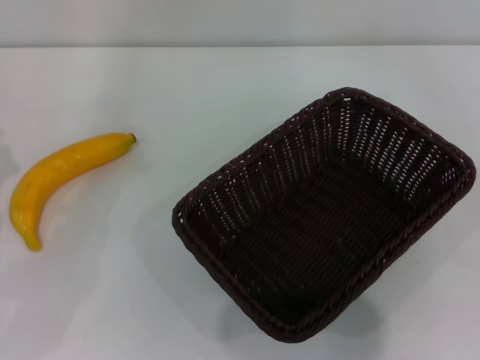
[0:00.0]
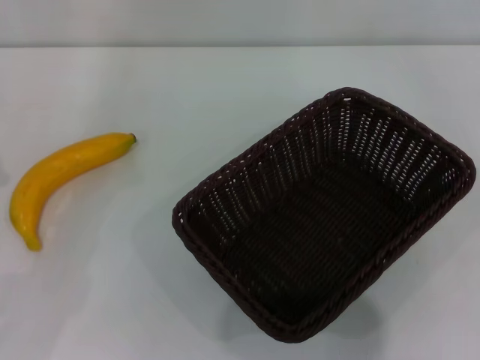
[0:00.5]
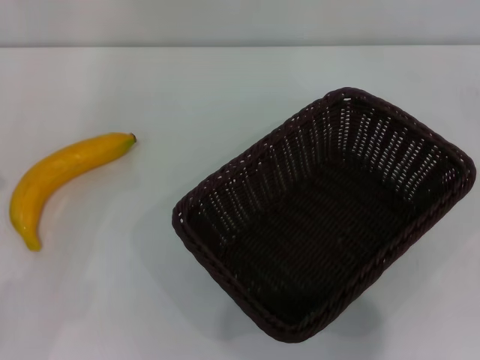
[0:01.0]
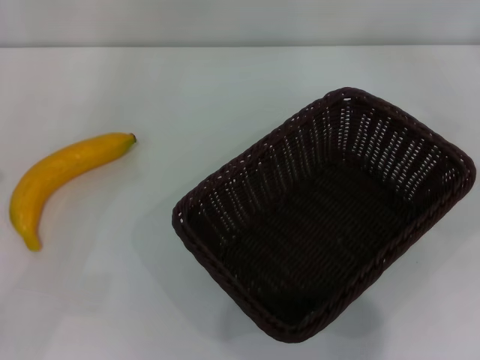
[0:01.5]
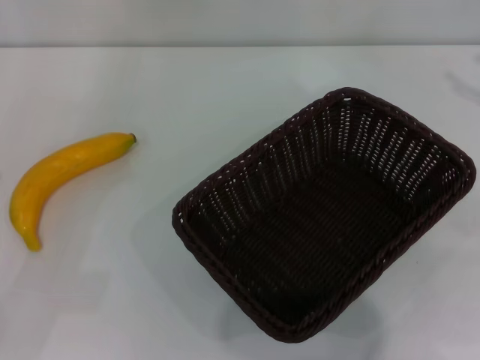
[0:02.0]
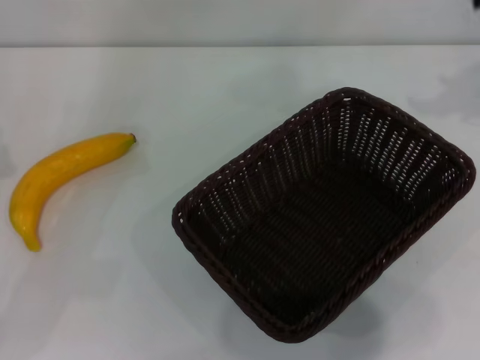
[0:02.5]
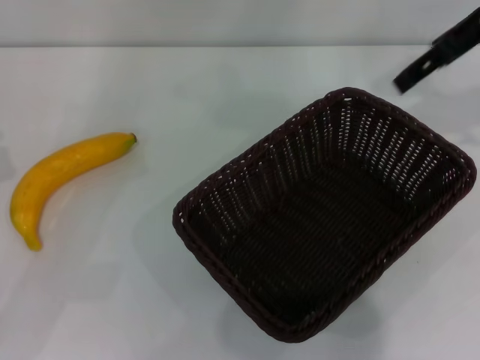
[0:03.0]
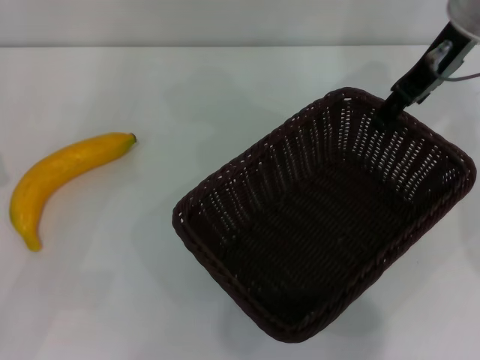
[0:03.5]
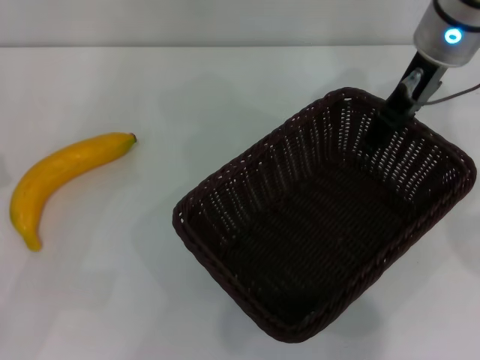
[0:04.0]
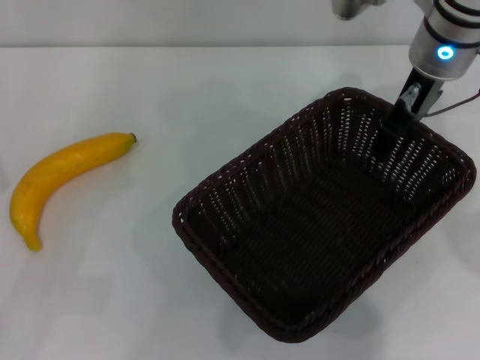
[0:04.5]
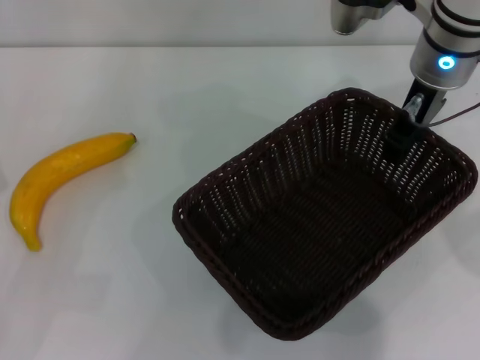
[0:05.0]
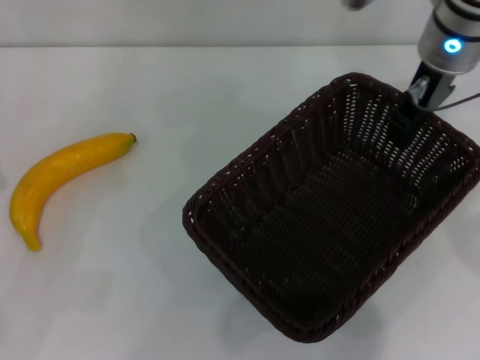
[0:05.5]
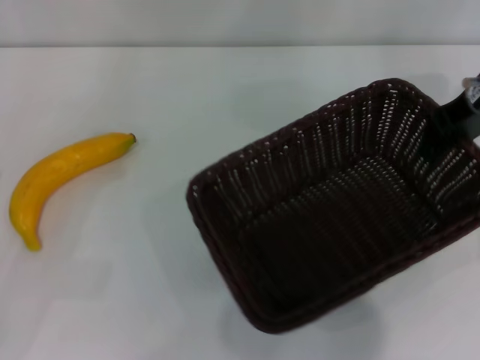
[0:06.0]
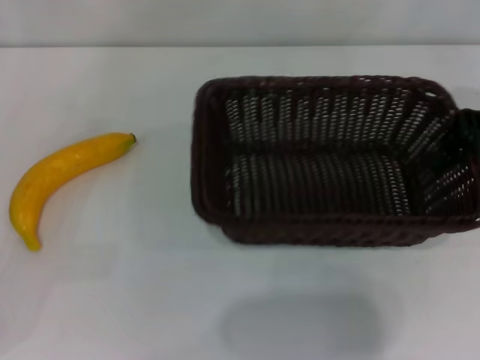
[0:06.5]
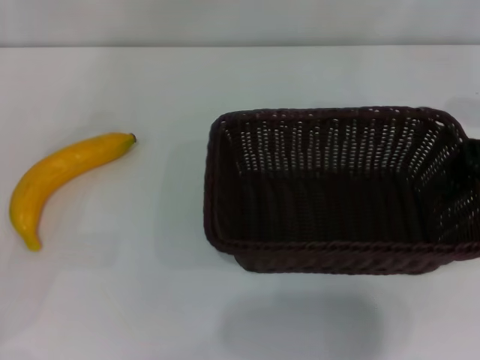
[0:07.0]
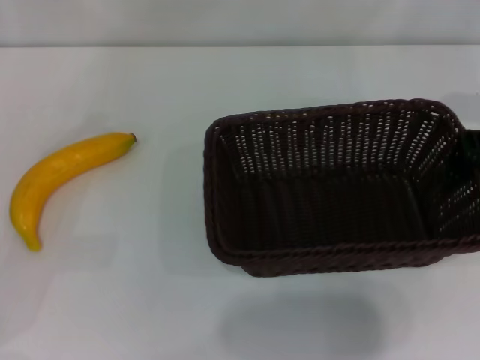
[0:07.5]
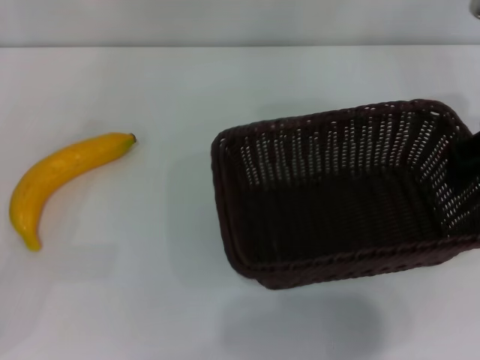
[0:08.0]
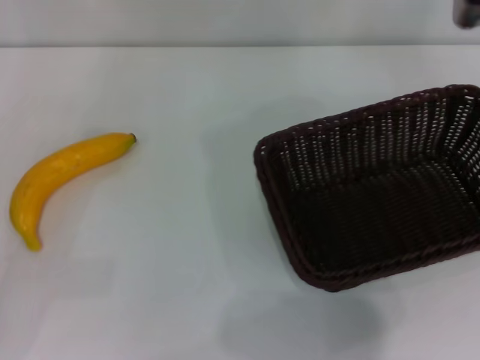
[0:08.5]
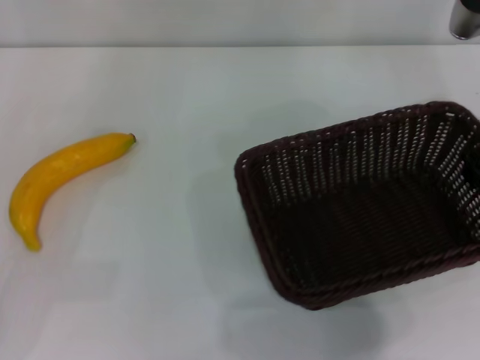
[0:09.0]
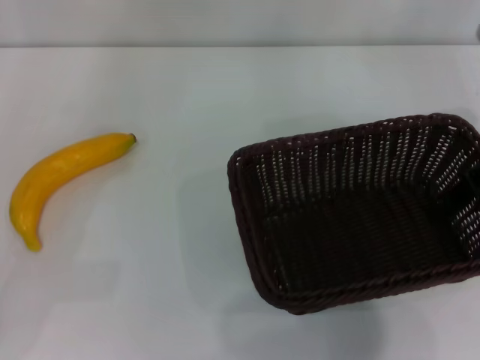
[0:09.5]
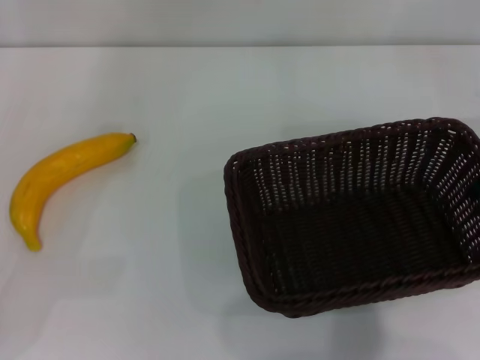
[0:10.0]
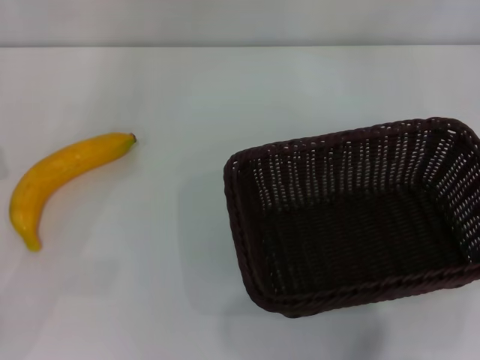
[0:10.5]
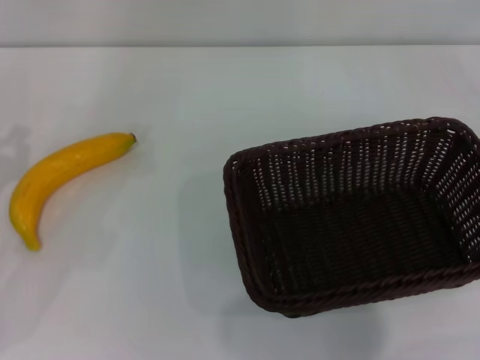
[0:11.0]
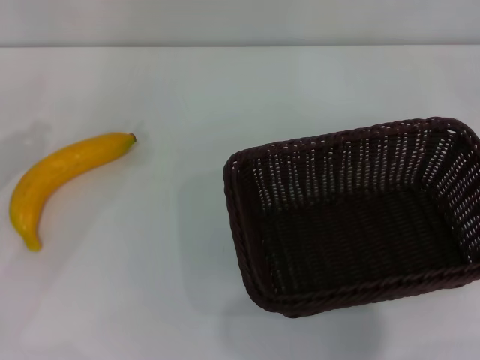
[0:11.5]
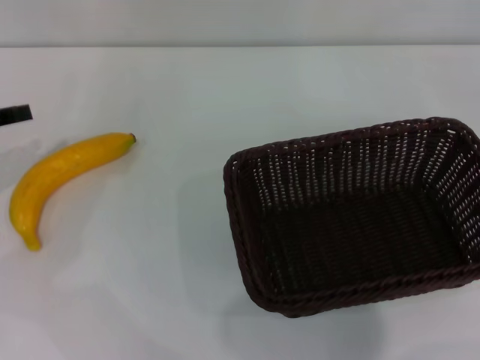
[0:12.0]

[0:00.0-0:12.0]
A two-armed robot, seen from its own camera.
Step, 0:00.0 to 0:05.5: Pick up the dark basket with the right gripper.
Step, 0:06.0 to 0:10.0: Place the dark basket in the center of view with the right gripper.
0:02.0 to 0:04.0: The right gripper goes about 25 cm to the left.
0:04.0 to 0:06.0: The right gripper shifts roughly 10 cm to the right, and closes up.
0:08.0 to 0:10.0: The right gripper changes place by about 5 cm, and opens its fingers.

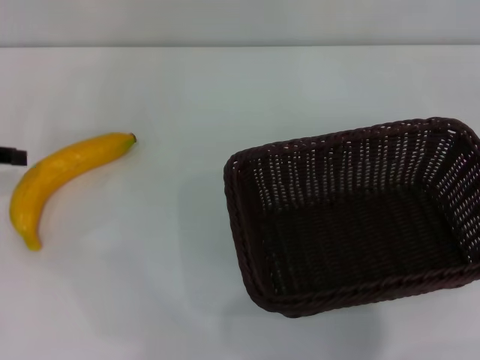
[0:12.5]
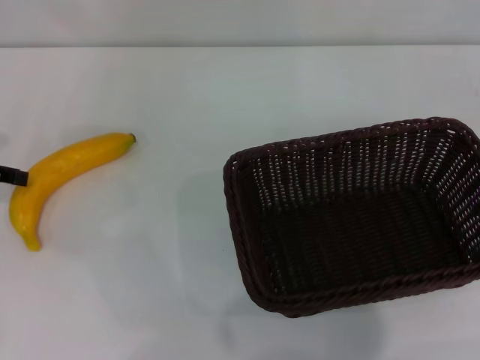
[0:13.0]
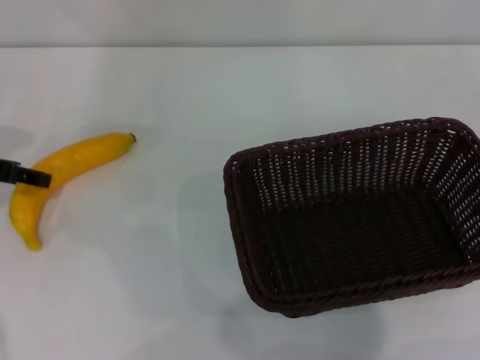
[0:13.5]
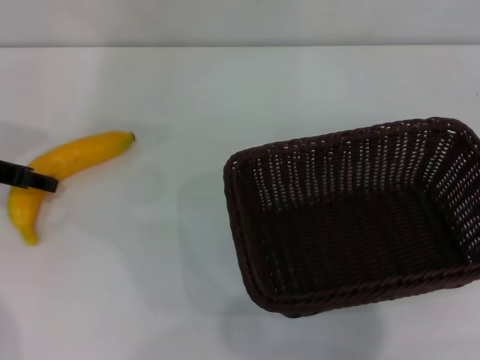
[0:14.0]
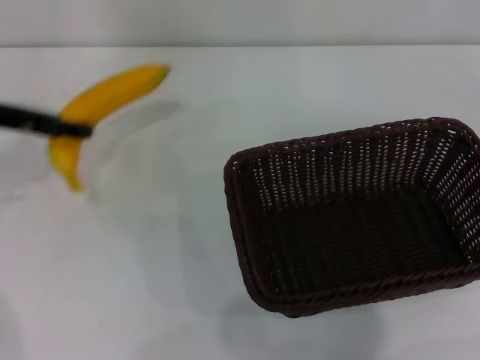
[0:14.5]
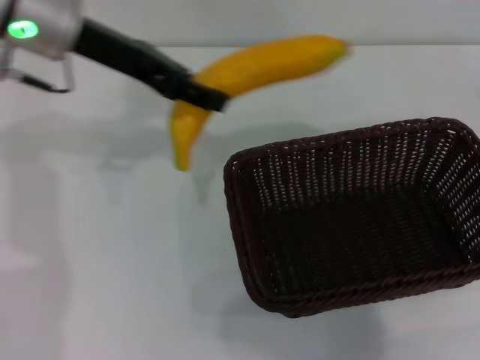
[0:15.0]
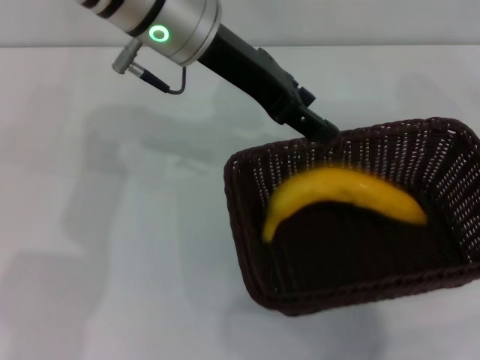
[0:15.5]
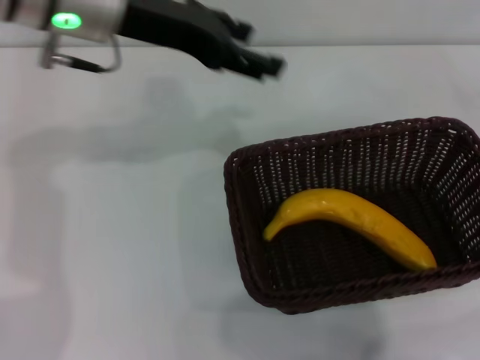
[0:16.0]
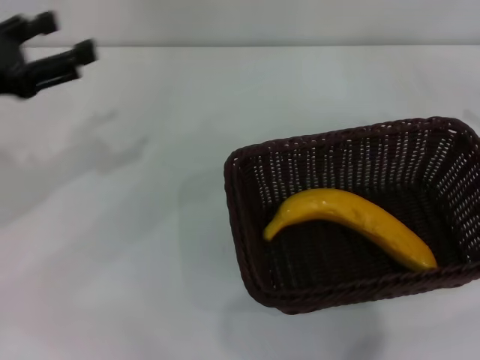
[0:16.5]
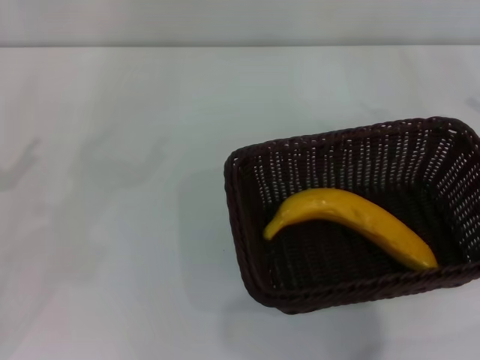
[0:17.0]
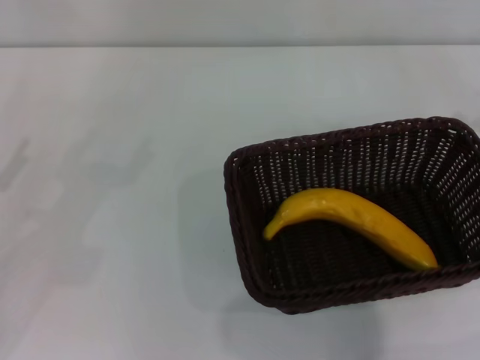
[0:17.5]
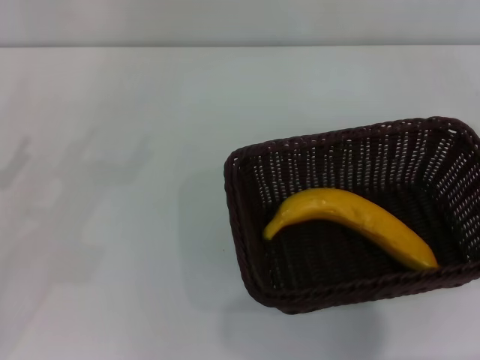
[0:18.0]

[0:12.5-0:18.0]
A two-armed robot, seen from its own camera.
Step, 0:14.5 to 0:15.5: Place the banana into the dark basket with the left gripper.
0:12.5 to 0:14.5: The left gripper is displaced to the right by about 5 cm.
0:14.5 to 0:16.0: The left gripper goes about 15 cm to the right and upward, and opens.
0:16.0 to 0:18.0: The left gripper is displaced to the left, downward and backward by about 30 cm, while the right gripper shifts by some 5 cm, and opens and closes again.

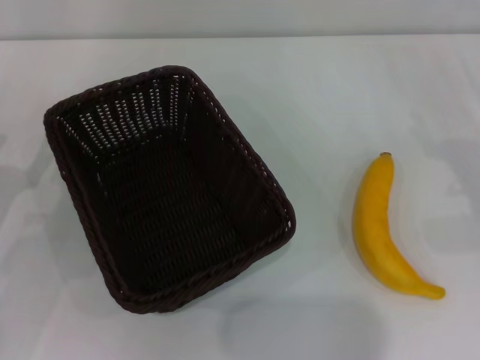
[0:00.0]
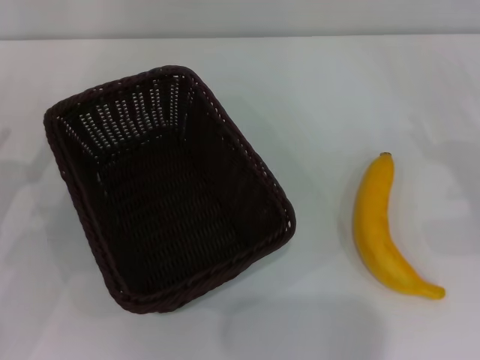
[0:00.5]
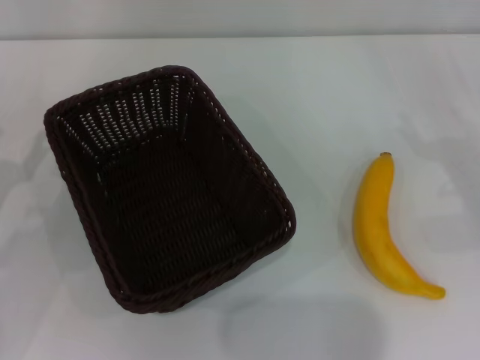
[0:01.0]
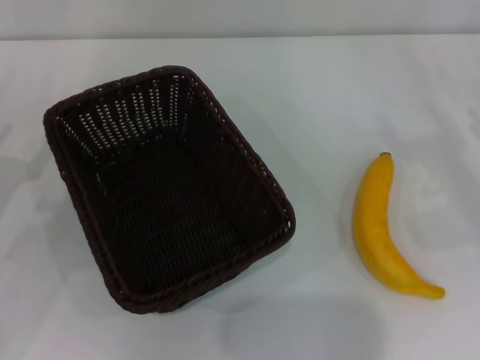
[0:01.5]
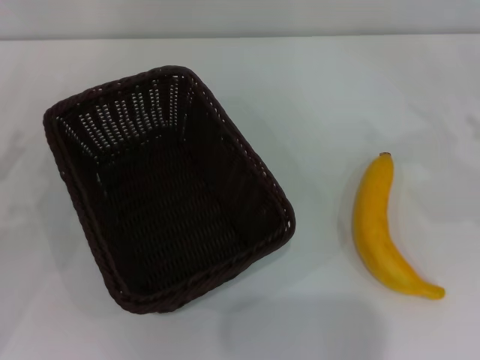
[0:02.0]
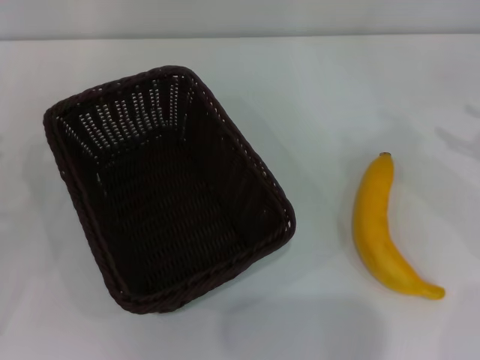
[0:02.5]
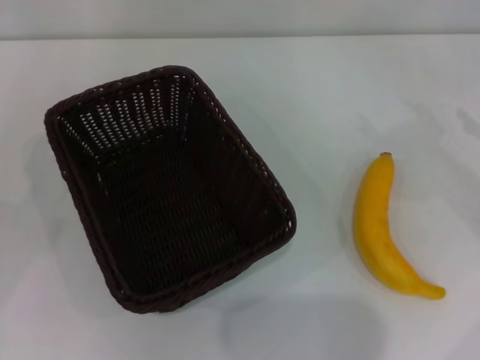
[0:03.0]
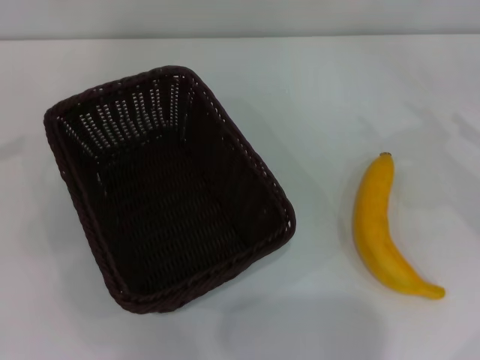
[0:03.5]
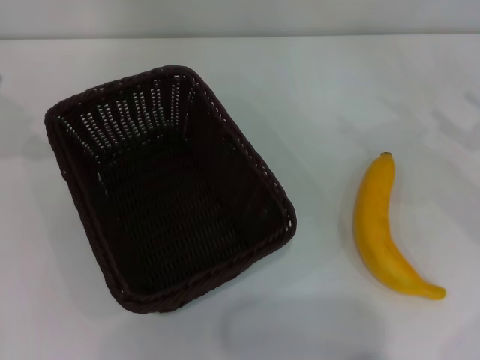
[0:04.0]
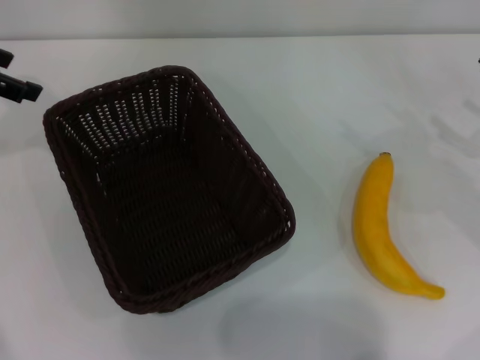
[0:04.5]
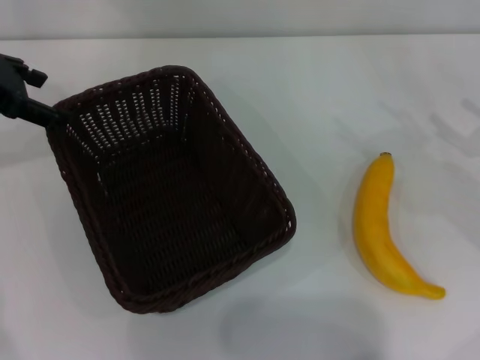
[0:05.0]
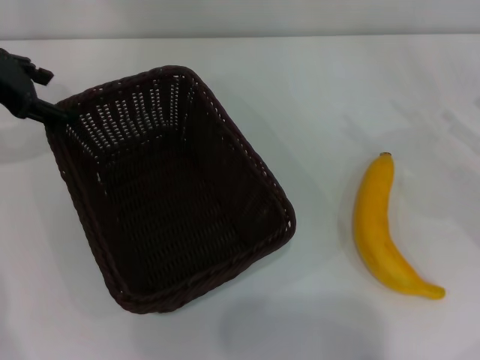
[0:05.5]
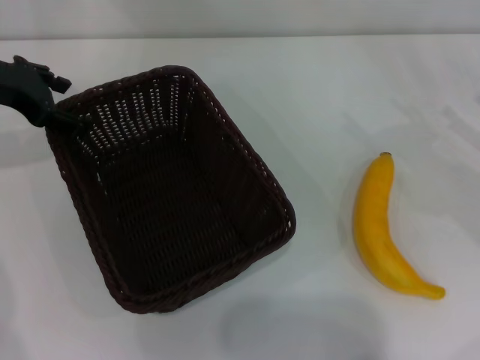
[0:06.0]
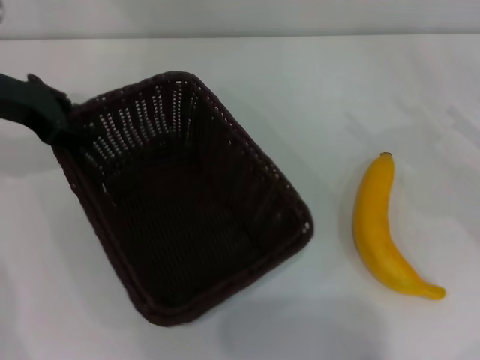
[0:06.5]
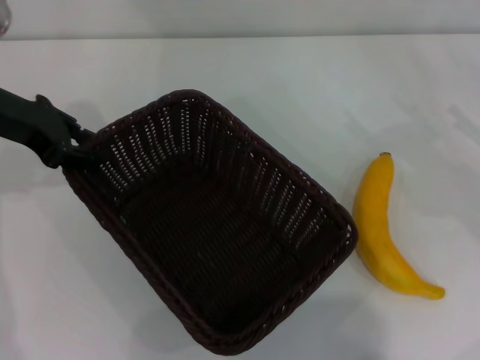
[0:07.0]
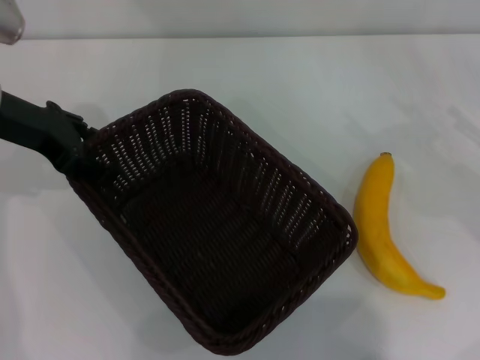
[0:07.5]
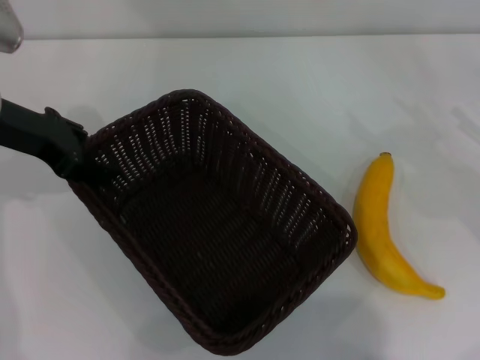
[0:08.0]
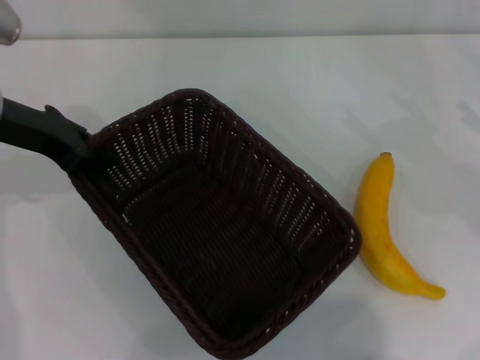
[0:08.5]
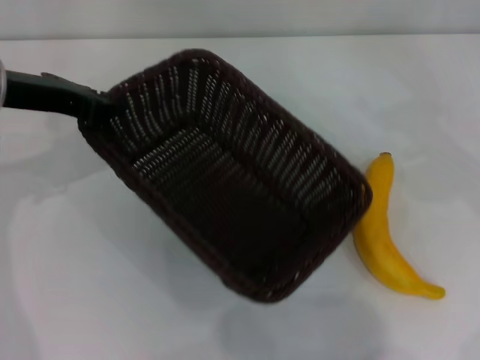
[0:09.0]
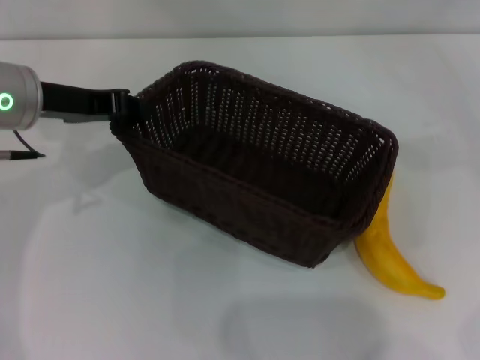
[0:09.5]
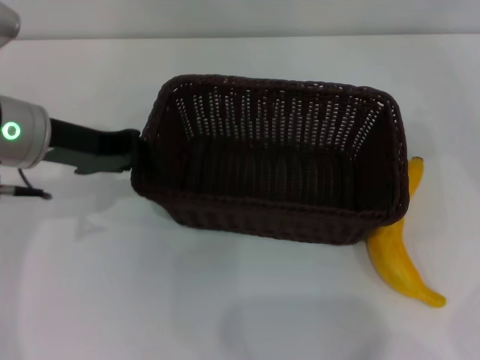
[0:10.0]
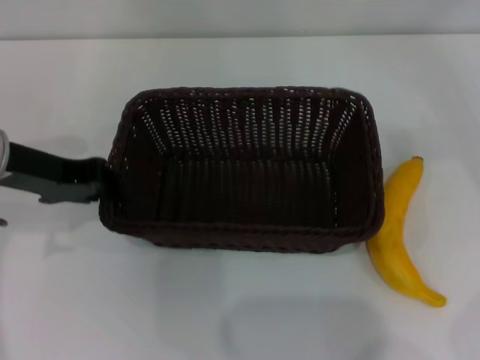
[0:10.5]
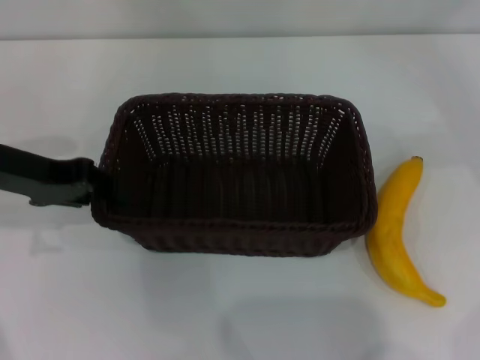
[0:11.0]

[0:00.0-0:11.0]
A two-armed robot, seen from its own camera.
Step, 0:00.0 to 0:08.5: Pick up the dark basket with the left gripper.
0:03.5 to 0:05.5: The left gripper moves to the right and forward, approximately 15 cm.
0:05.5 to 0:07.5: The left gripper shifts by roughly 5 cm.
0:07.5 to 0:09.0: The right gripper travels upward by roughly 5 cm. The left gripper closes its fingers.
